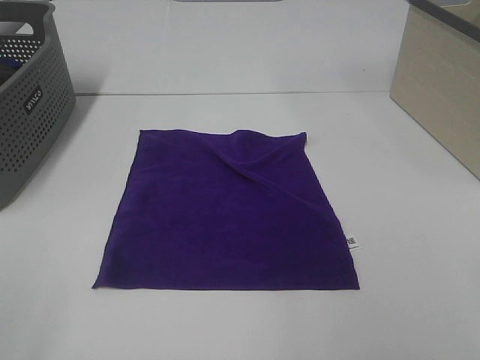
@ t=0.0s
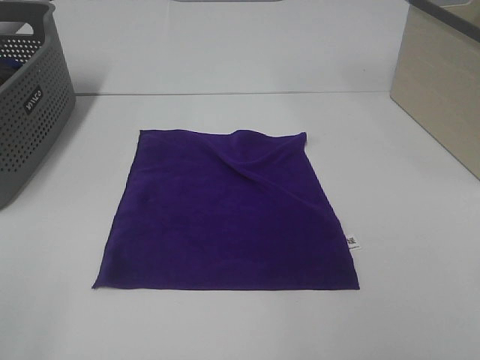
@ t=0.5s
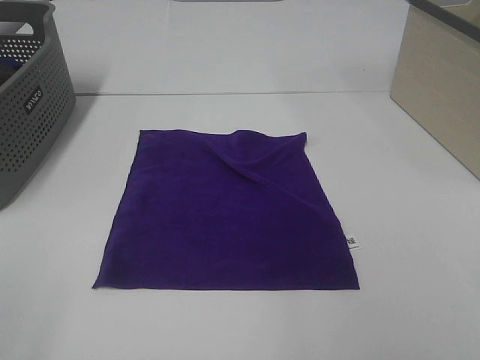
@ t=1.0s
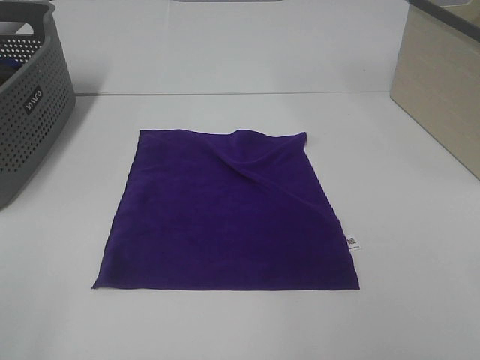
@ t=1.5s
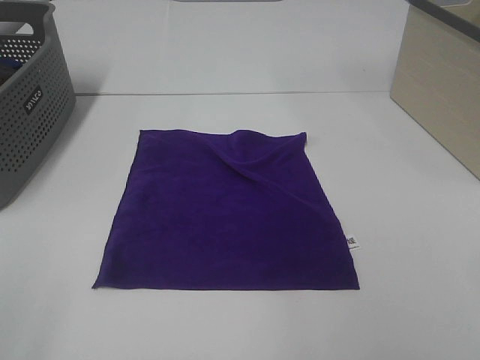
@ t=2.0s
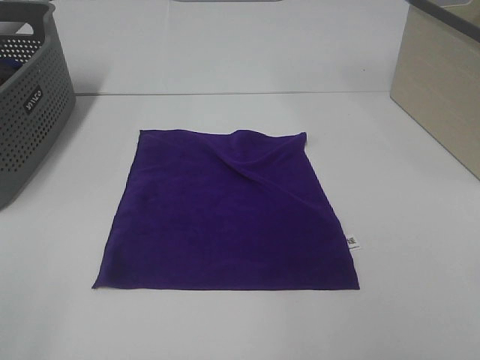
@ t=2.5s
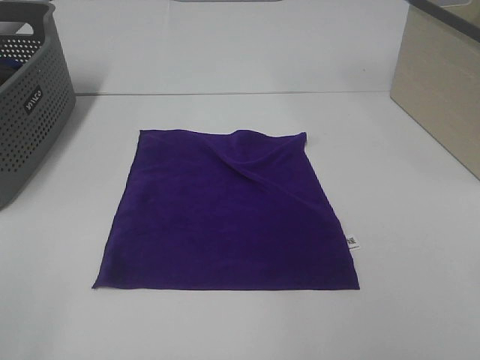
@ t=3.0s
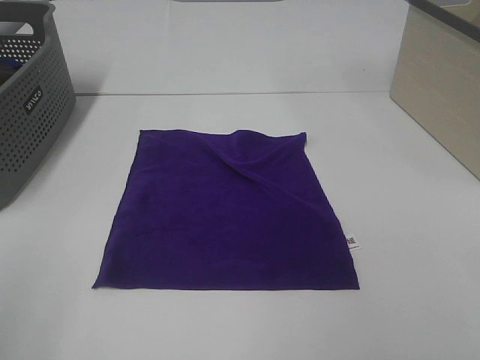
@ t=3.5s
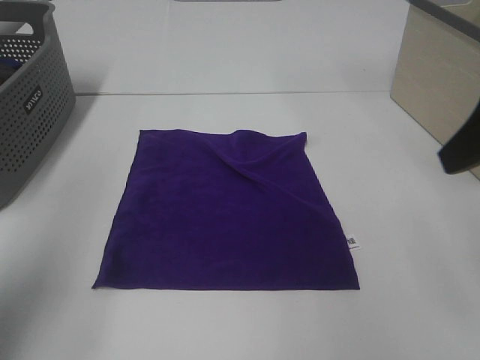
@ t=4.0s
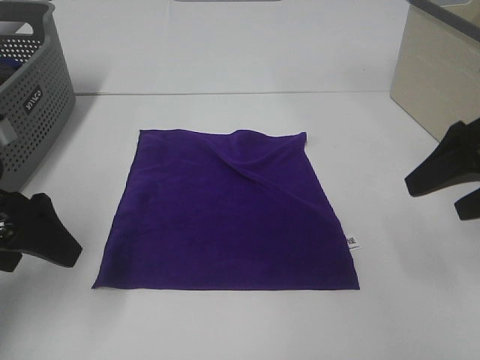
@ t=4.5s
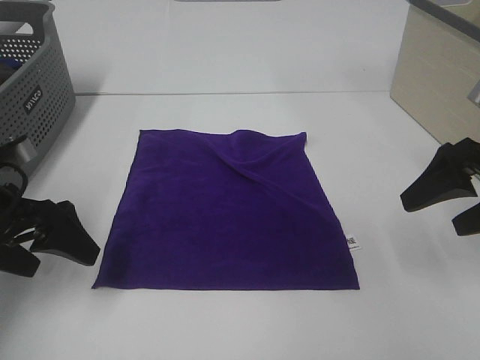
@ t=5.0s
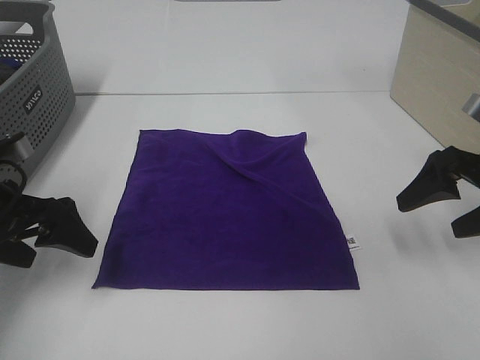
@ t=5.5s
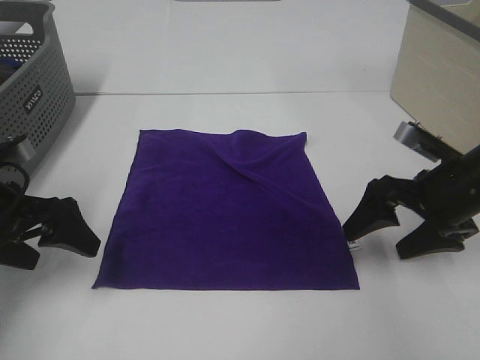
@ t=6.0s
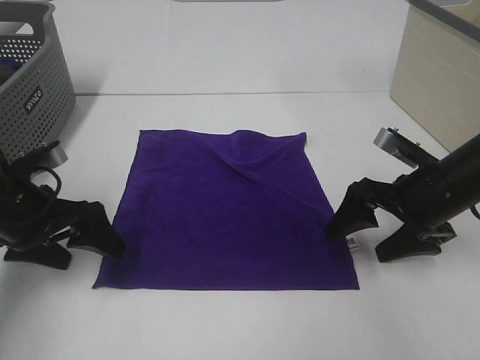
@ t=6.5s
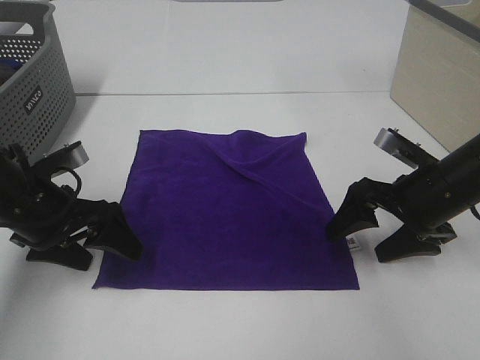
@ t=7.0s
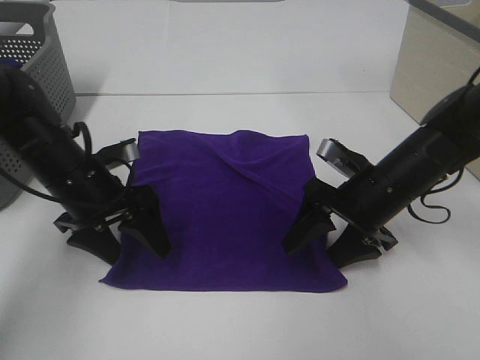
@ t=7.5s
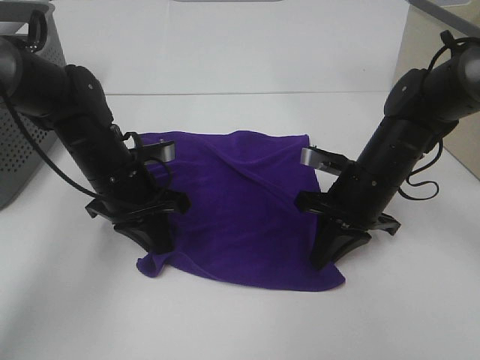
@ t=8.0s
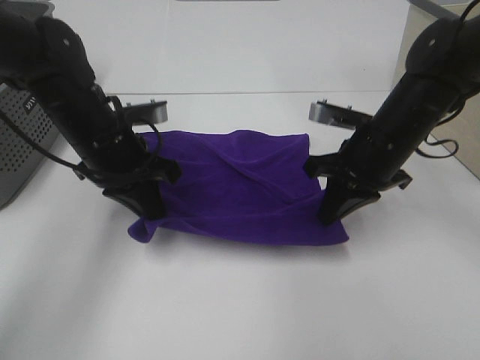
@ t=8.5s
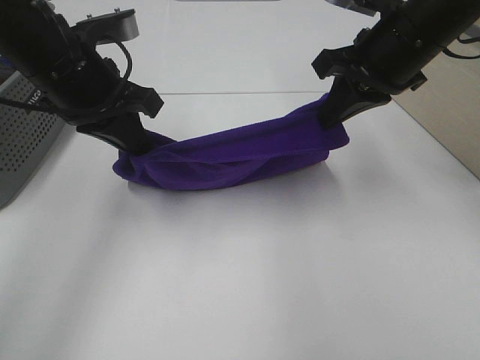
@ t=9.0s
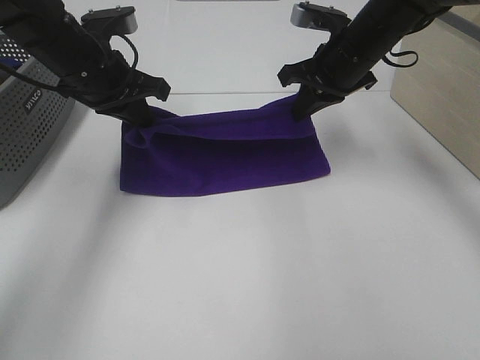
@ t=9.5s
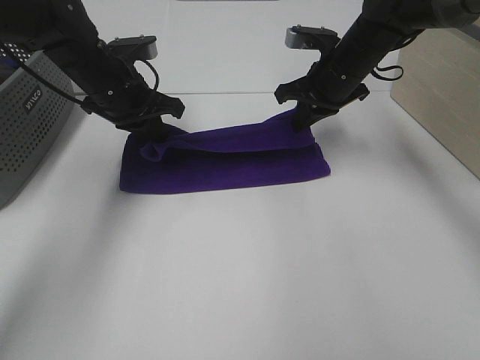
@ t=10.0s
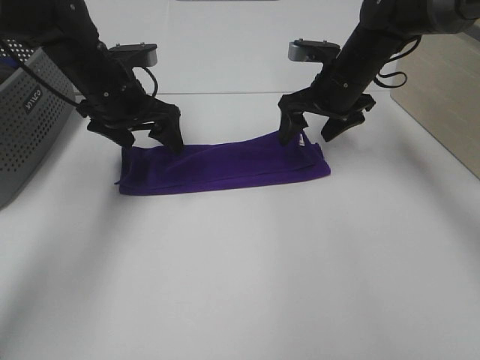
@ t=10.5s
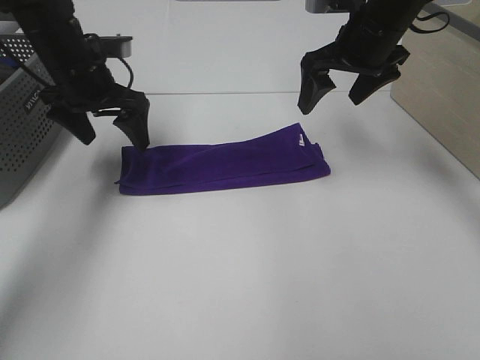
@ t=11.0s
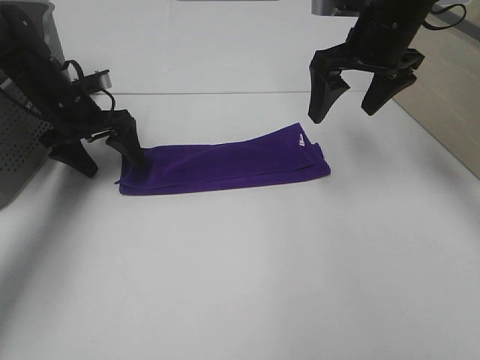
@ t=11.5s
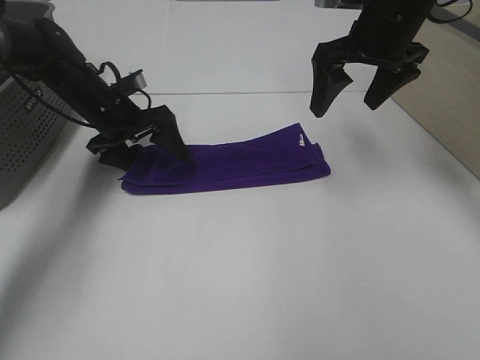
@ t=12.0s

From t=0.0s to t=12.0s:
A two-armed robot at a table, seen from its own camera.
Task of the whole recording: Fold towels.
Step, from t=0.0s to t=8.0s: Left hand: grab the bottom left corner of purple towel.
Step, from t=0.0s to t=8.0s: Right hand: grab the bottom right corner of purple towel.
Step, from t=8.5s to t=10.0s: Left hand: fold the purple towel up.
Step, from t=8.5s to t=10.0s: Right hand: fold the purple towel up.
From t=2.0s to t=4.0s: Both grippers travel together forward, roughly 20 cm.
From t=4.0s to t=6.0s: The right gripper heads downward, covering about 20 cm. Meanwhile the left gripper moves downward and forward, approximately 20 cm.
From t=6.0s to t=8.0s: The left gripper shifts roughly 15 cm to the right and forward, and closes its fingers, while the right gripper shifts about 10 cm to the left, and closes up.
From t=8.0s to t=10.0s: The two grippers go some 15 cm forward and upward.
From t=10.0s to t=12.0s: The right gripper heads upward and backward, covering about 10 cm, and opens up. Meanwhile the left gripper heads downward, covering about 5 cm, goes to the left and returns, approximately 10 cm each way, and opens its fingers.

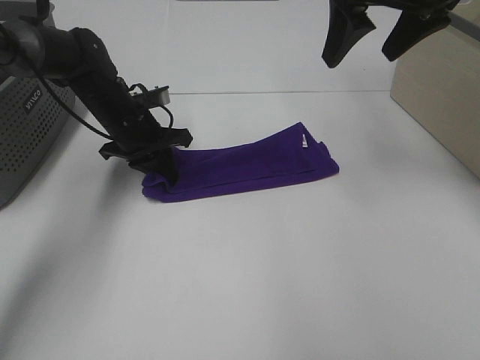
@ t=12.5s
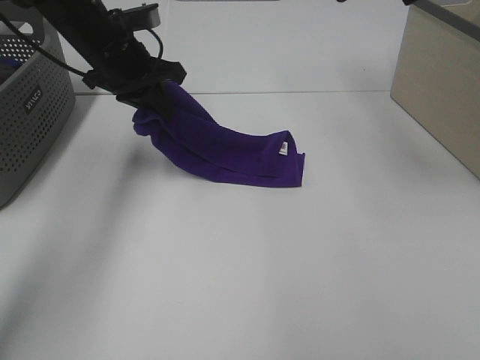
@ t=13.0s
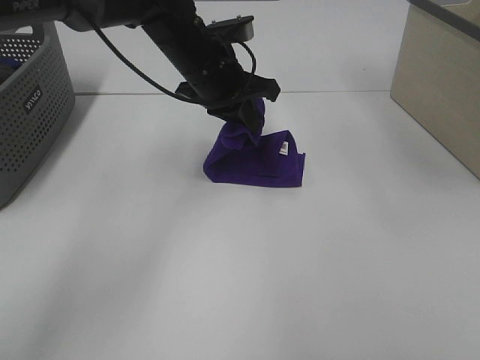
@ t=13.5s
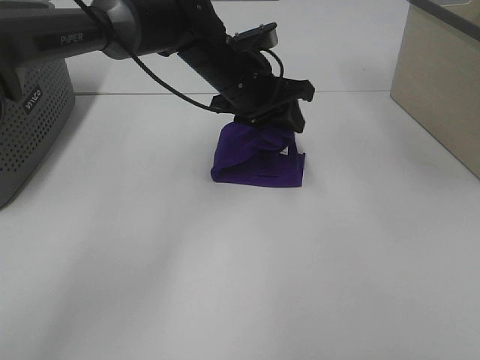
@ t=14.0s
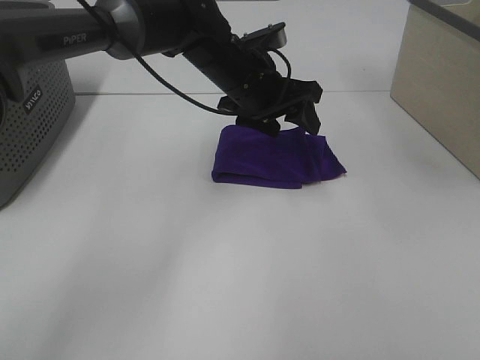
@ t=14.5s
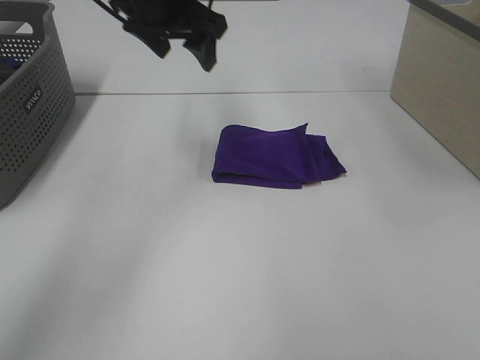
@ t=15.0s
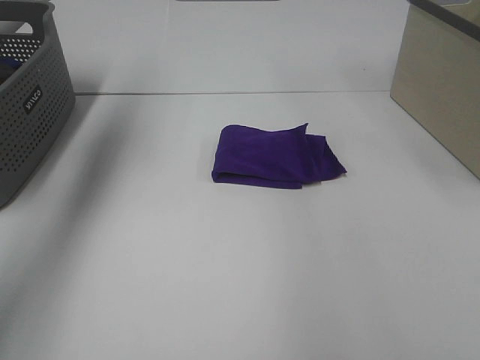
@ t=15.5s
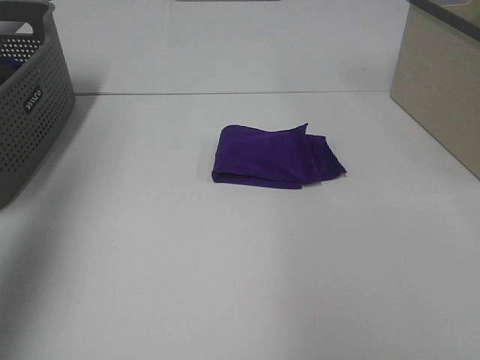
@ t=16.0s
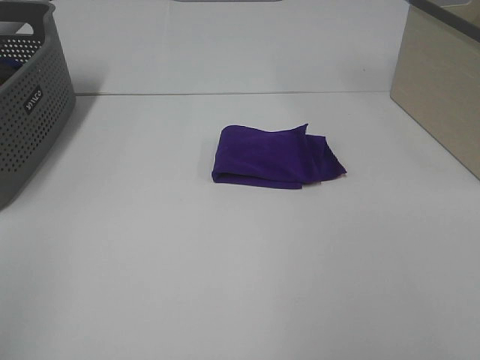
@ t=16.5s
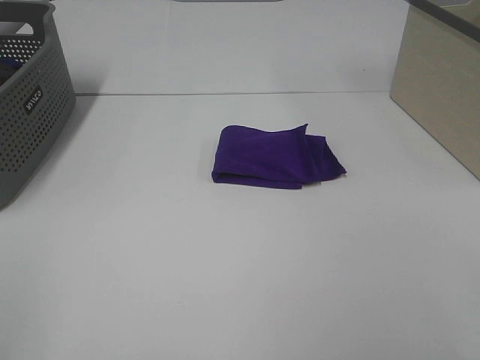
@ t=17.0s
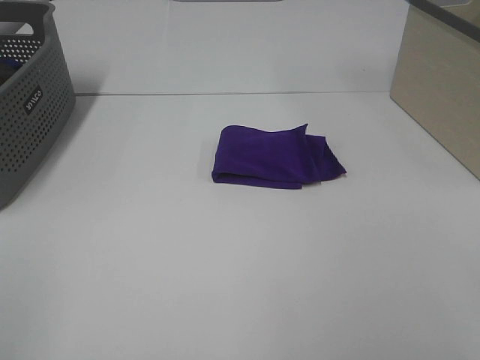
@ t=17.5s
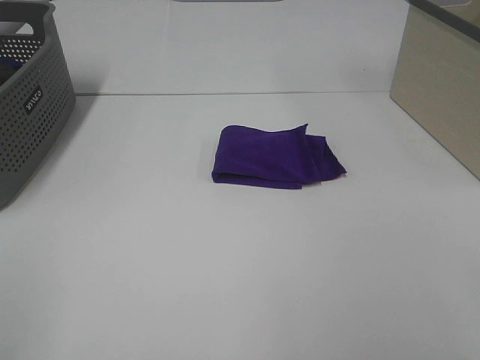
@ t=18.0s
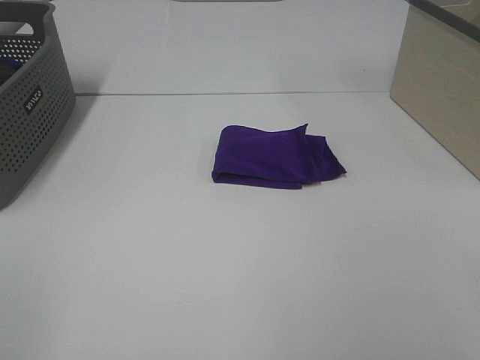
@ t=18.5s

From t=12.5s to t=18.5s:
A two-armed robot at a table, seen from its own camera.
Task of the whole recording: Fold towels.
From t=12.5s to t=14.5s: The right gripper heads upward and backward, covering roughly 10 cm. Meanwhile the left gripper goes some 20 cm to the right and upward, and opens up.
From t=14.5s to t=16.5s: The left gripper shifts about 50 cm backward and to the left; the right gripper is displaced backward by approximately 30 cm.

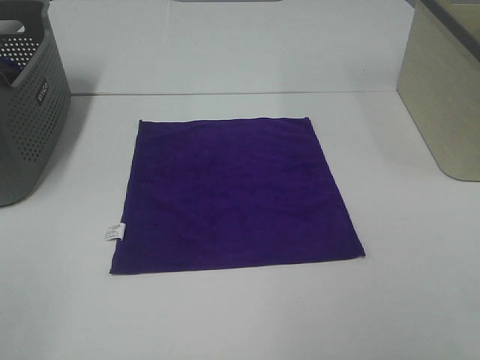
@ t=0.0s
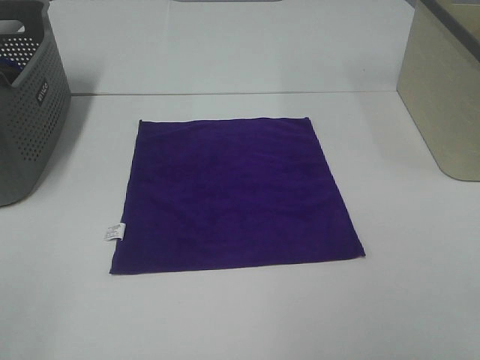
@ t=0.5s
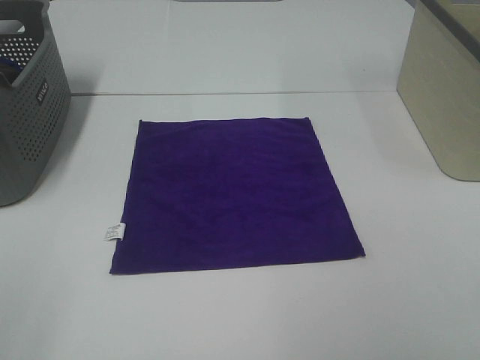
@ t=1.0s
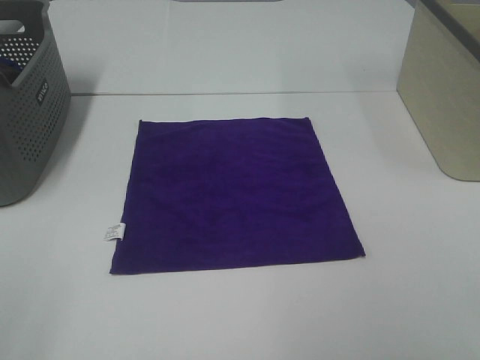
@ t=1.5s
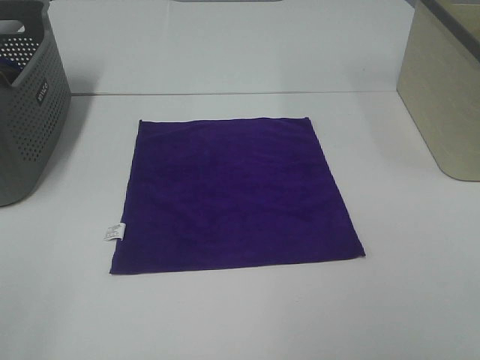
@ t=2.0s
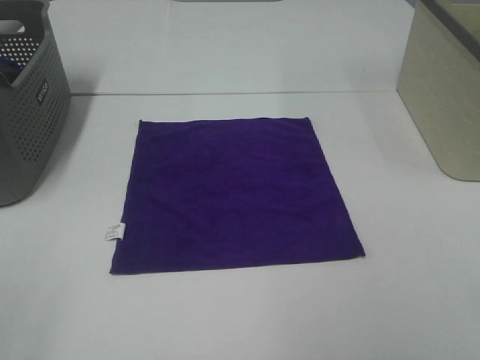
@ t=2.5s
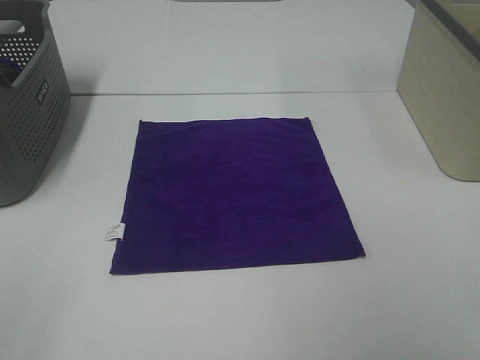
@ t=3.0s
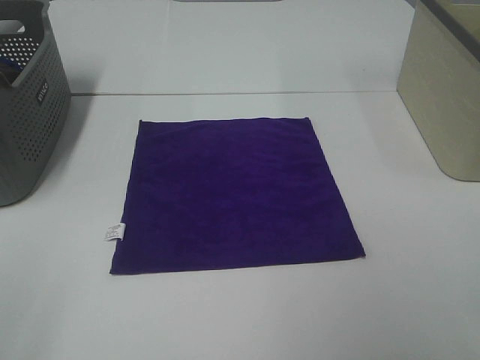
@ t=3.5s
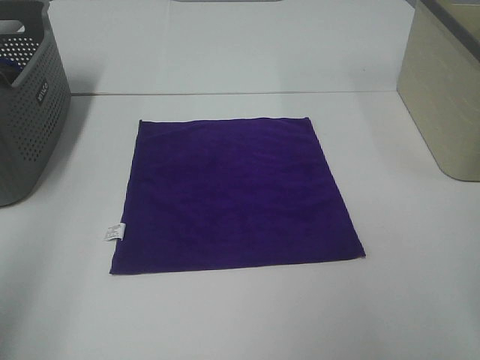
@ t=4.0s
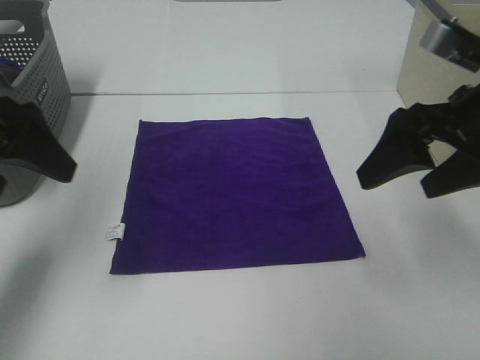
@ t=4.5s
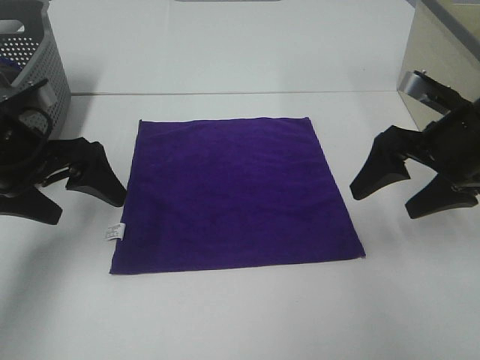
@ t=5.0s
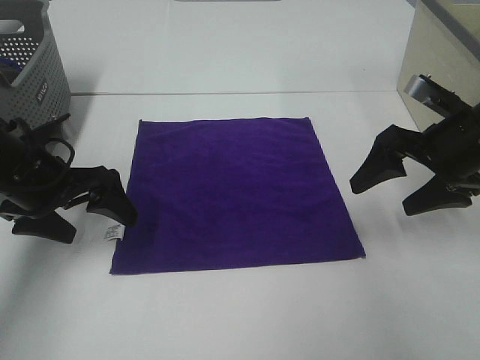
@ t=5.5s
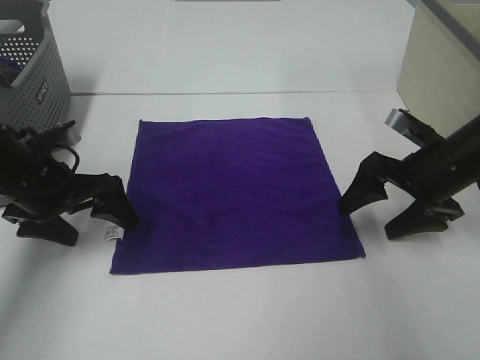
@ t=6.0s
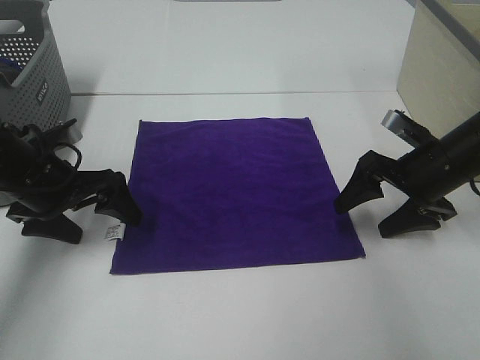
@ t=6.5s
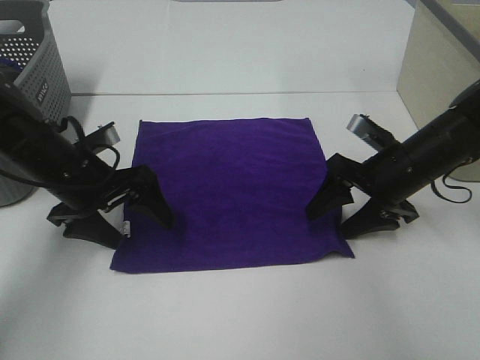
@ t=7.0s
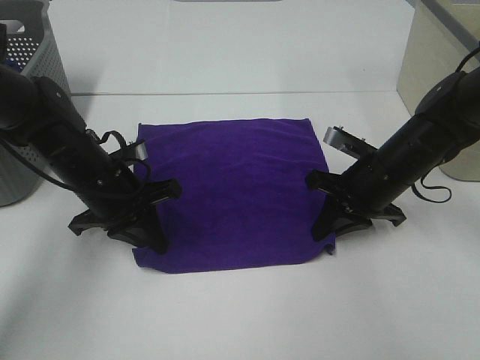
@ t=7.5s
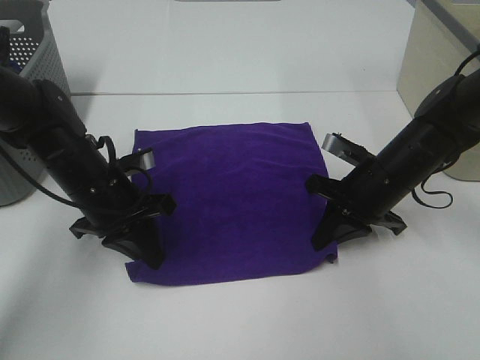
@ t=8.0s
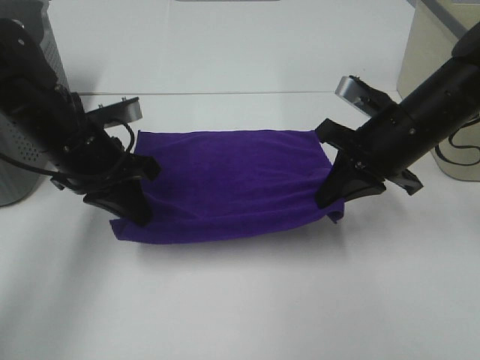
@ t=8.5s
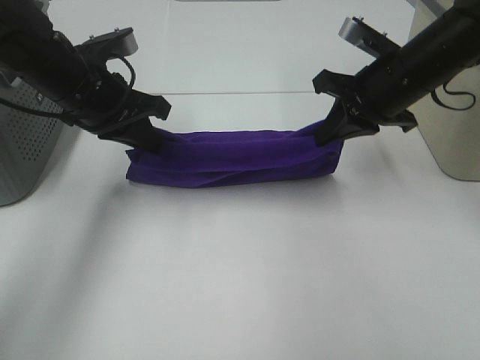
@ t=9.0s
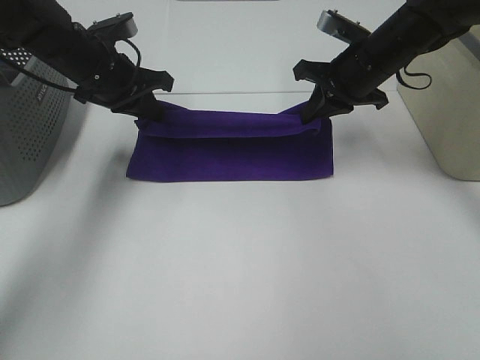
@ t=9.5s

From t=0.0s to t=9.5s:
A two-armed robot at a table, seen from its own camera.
Task of the whole recording: Fold towels.
Step, from t=0.0s to t=7.5s: Left hand: grab the bottom left corner of purple towel.
Step, from t=0.0s to t=7.5s: Right hand: grab the bottom right corner of purple towel.
From t=2.0s to t=4.0s: The left gripper heads forward and upward, covering roughly 15 cm.
From t=4.0s to t=5.5s: The left gripper moves downward and forward, some 30 cm; the right gripper goes approximately 25 cm forward and downward.
From t=5.5s to t=7.5s: The left gripper travels to the right by some 5 cm, and closes up; the right gripper travels downward and to the left by roughly 10 cm, and closes its fingers.
From t=7.5s to t=9.5s: Both grippers move forward and upward, about 15 cm.
